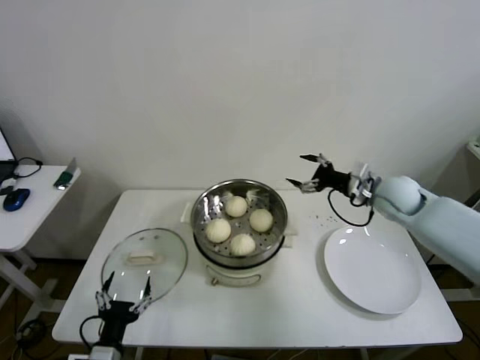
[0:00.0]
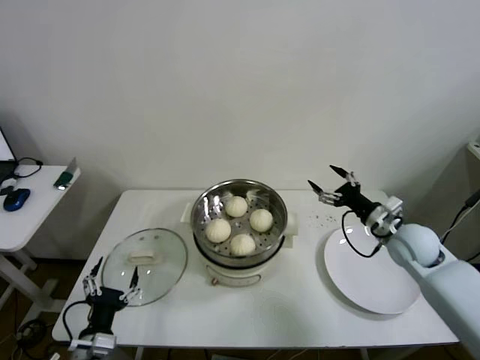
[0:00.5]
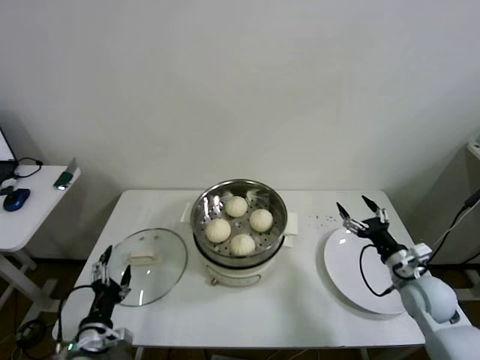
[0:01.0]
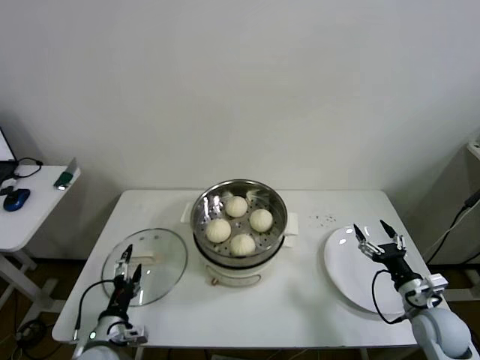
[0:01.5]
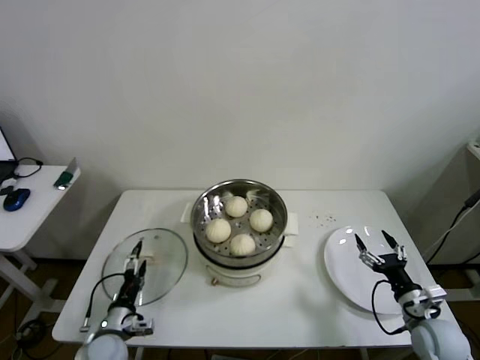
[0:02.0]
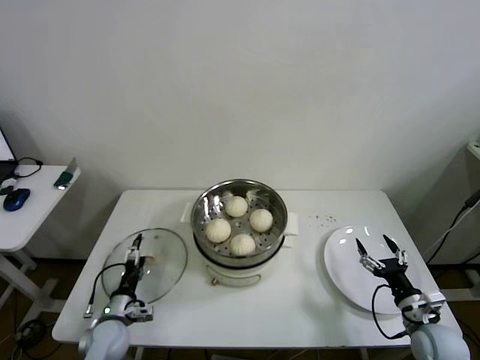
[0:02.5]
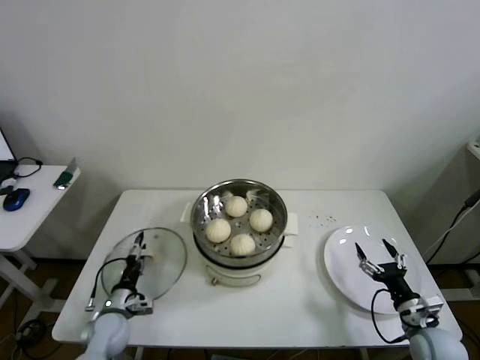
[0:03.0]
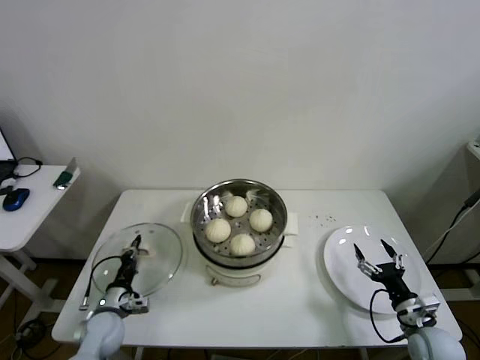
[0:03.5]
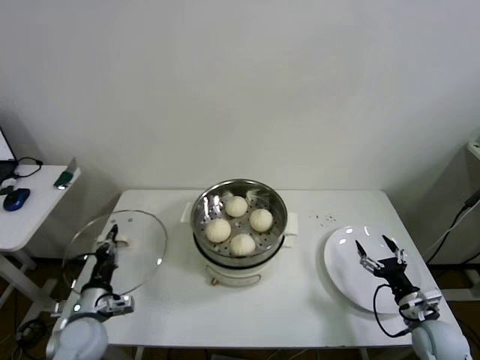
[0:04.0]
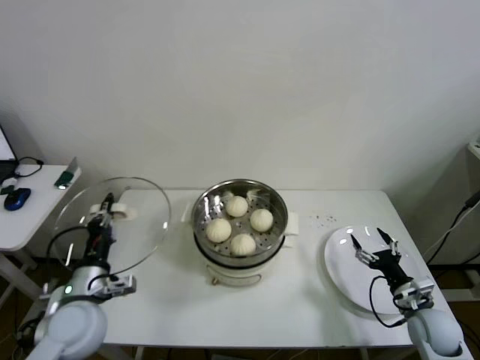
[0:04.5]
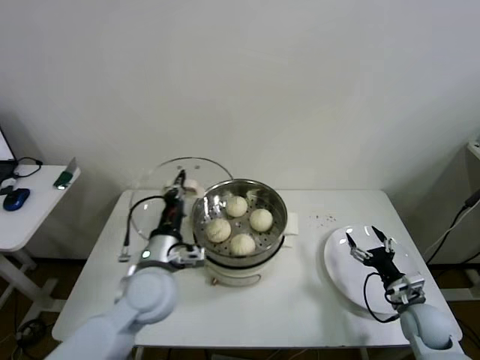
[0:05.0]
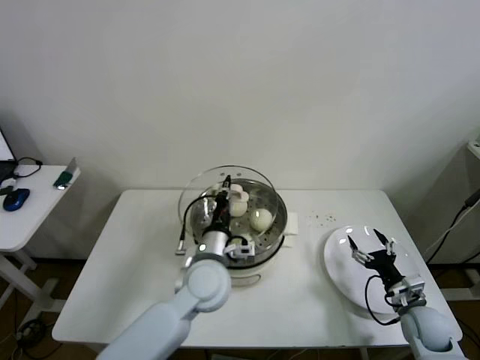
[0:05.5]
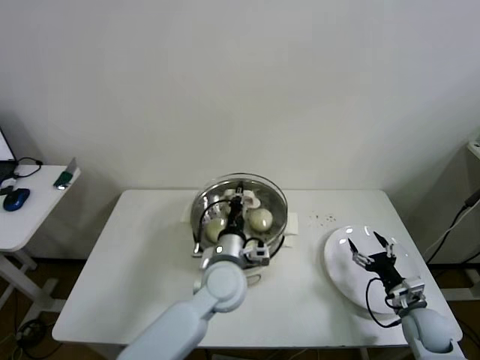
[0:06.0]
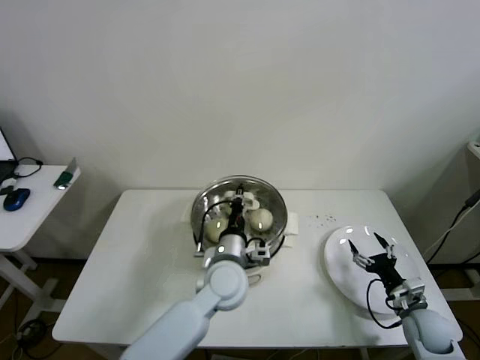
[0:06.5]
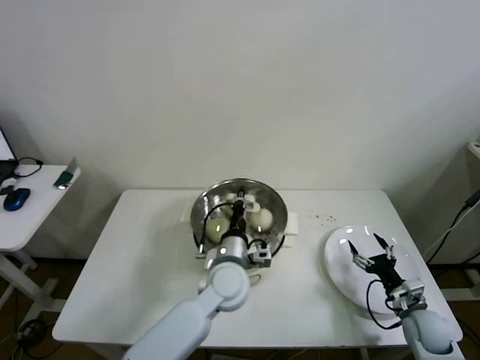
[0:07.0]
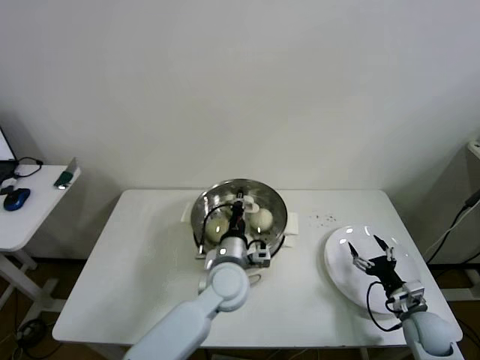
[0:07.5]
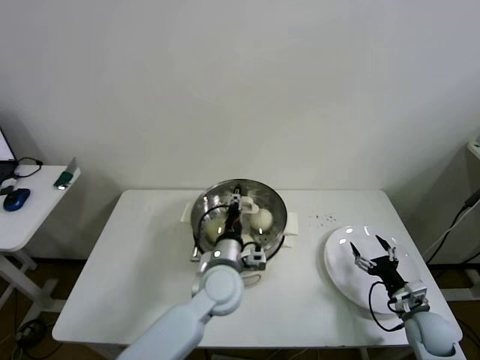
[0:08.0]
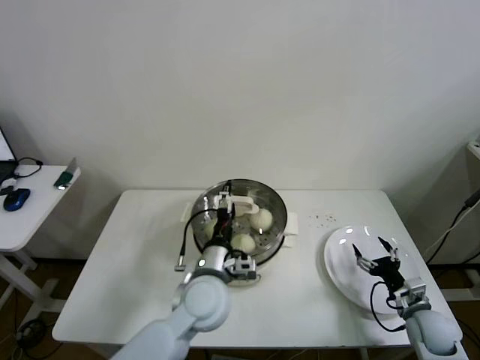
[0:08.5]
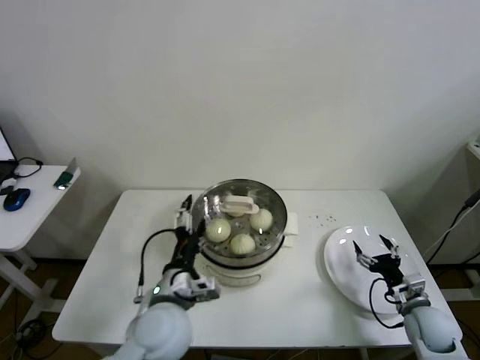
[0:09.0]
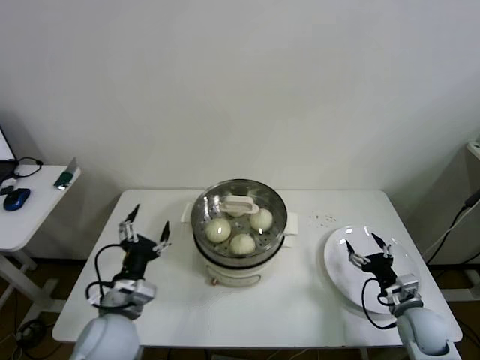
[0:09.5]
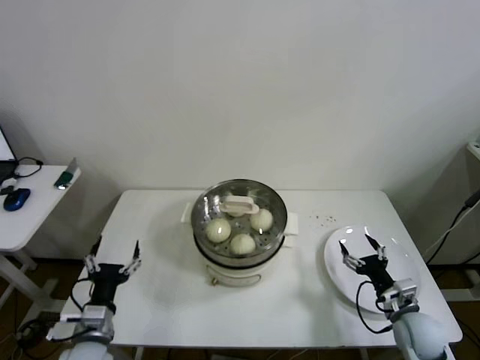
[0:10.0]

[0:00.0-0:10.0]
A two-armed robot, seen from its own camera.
Step, 0.0 to 3.5 s: Grasp the pot lid with left gripper.
Step, 4.0 to 7.5 s: Place the pot lid on the steamer with left gripper.
0.0 to 2.0 s: The right gripper heads backward and downward, covering some 30 cm. Meanwhile the left gripper moves forward and downward, some 10 cm.
2.0 to 4.0 s: The left gripper moves upward, about 5 cm, and closes.
4.0 to 6.0 s: The left gripper is displaced to the right by about 30 cm.
6.0 to 8.0 s: The left gripper opens up.
8.0 to 10.0 s: The right gripper moves about 5 cm. The left gripper moves to the left and backward, approximately 30 cm, and opens its fingers.

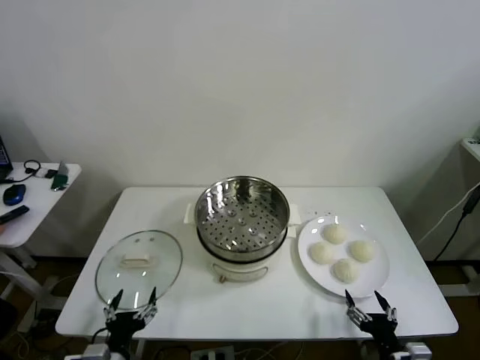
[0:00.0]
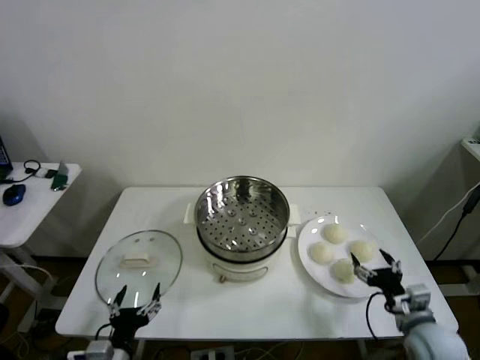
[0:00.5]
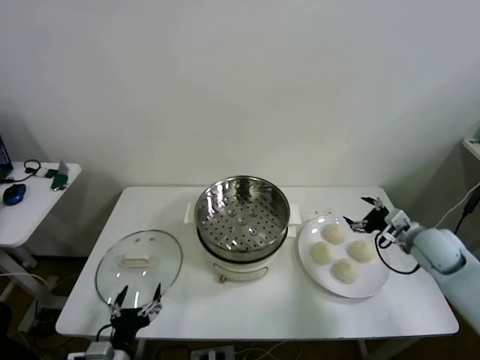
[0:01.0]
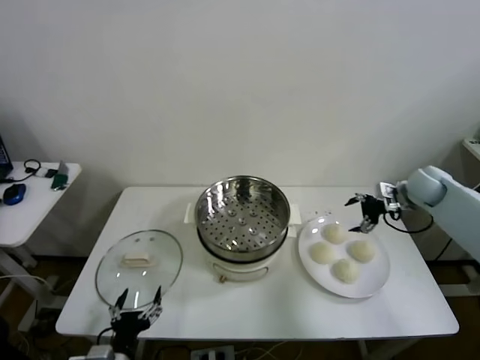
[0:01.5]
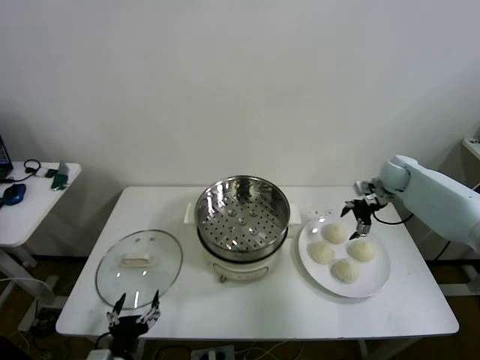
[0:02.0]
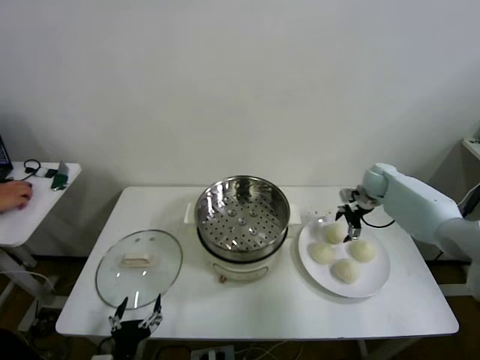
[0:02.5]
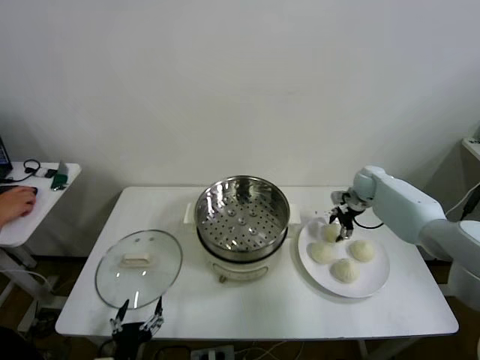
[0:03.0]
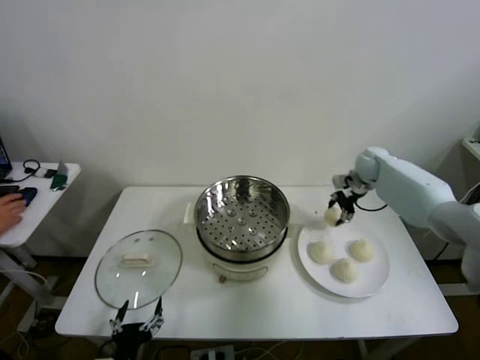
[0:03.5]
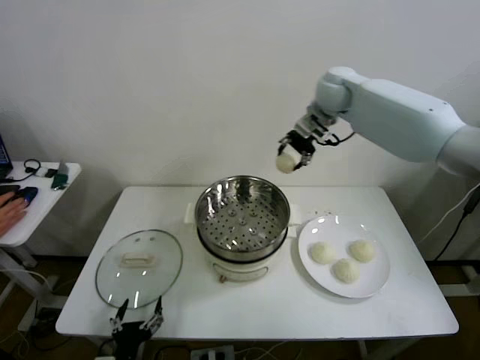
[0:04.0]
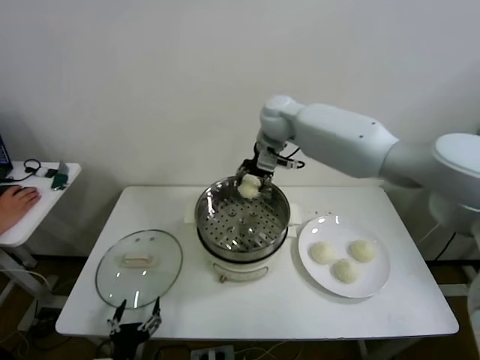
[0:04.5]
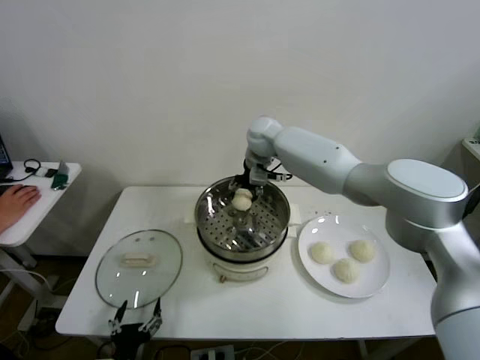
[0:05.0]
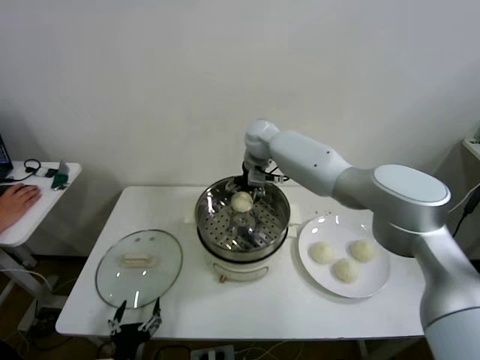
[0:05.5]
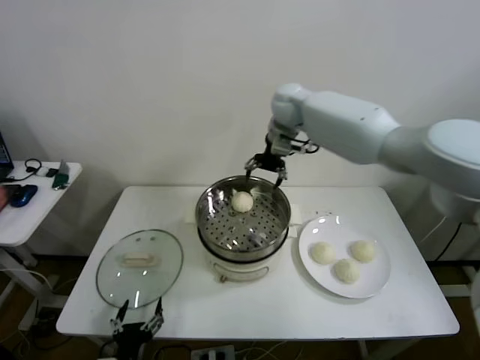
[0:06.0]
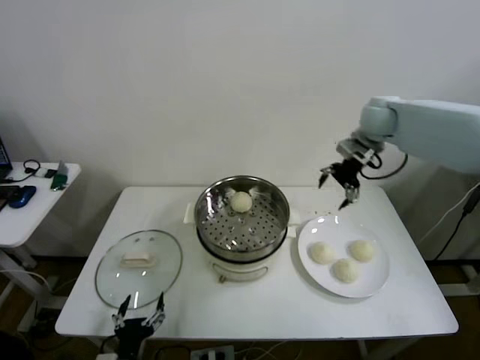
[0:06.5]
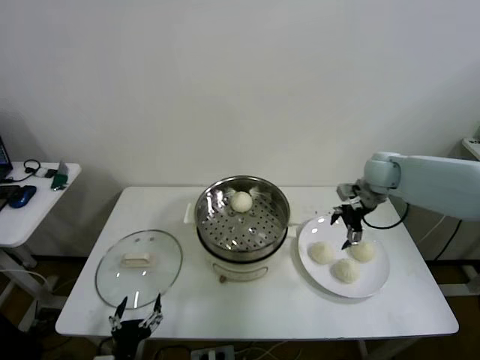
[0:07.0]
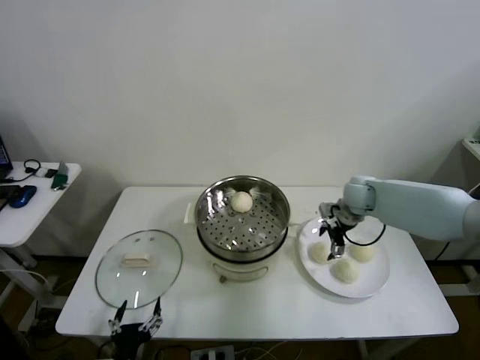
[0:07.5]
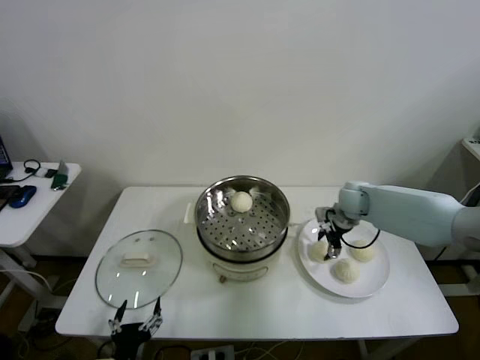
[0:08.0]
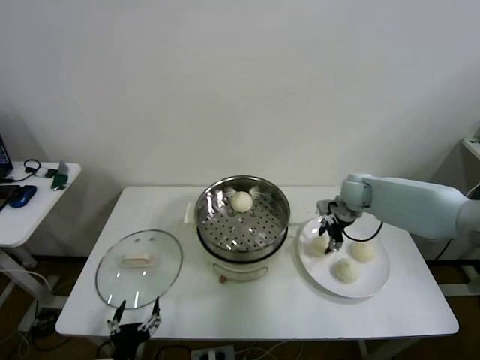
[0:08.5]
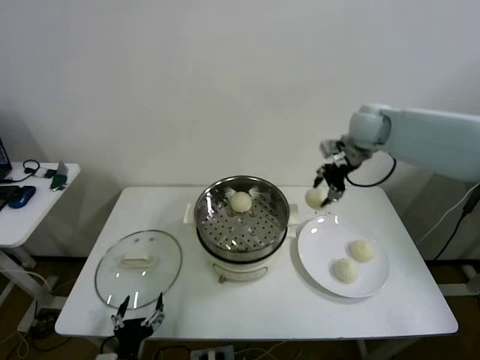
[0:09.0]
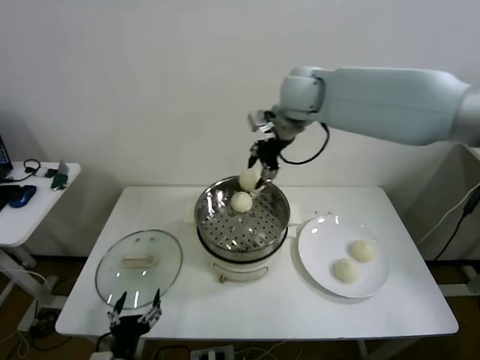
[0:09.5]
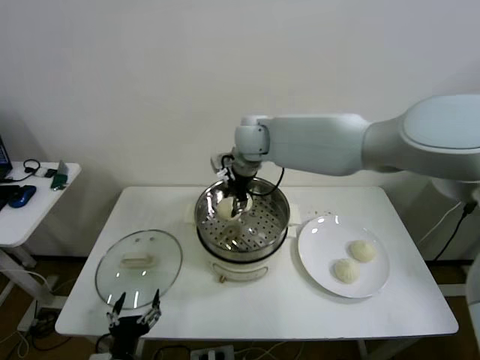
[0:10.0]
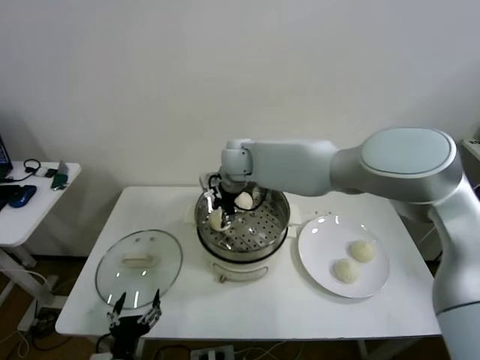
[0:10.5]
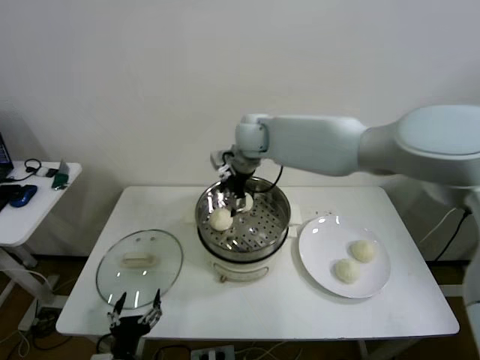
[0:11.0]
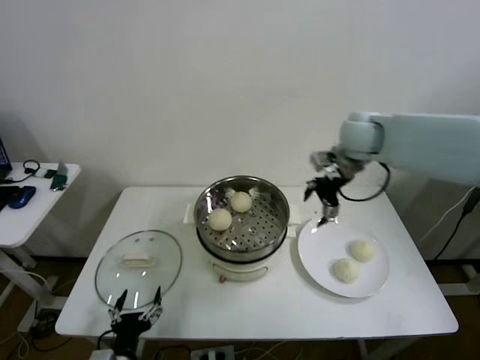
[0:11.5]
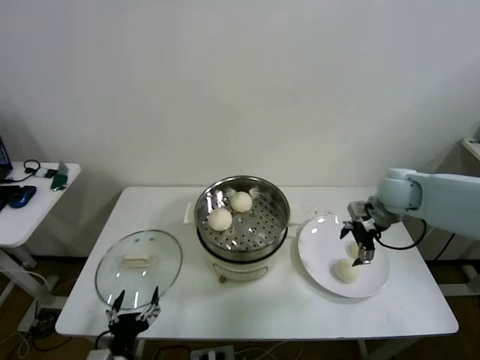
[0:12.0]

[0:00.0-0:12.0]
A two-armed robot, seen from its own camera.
Step, 0.0 to 3.0 s: Grasp the baozi in the plate with right gripper.
Step, 3.5 to 5.0 s: Place the baozi on the steamer with right gripper.
Step, 6.0 to 8.0 s: Grasp the baozi in the plate with right gripper.
Step, 8.5 to 10.5 s: Place the baozi on the steamer with right gripper.
2.0 to 4.0 s: The right gripper moves to the left and upward, some 35 cm, and closes.
4.0 to 6.0 s: The right gripper reaches about 15 cm downward, then returns, and opens up.
6.0 to 8.0 s: The right gripper goes about 30 cm downward and to the right, and closes up.
8.0 to 10.0 s: The right gripper heads to the left and upward, covering about 35 cm.
10.0 to 12.0 s: The right gripper shifts some 35 cm to the right, and opens.

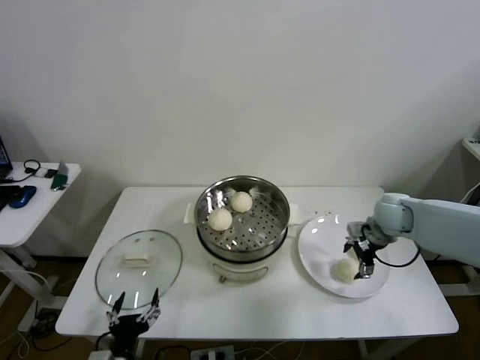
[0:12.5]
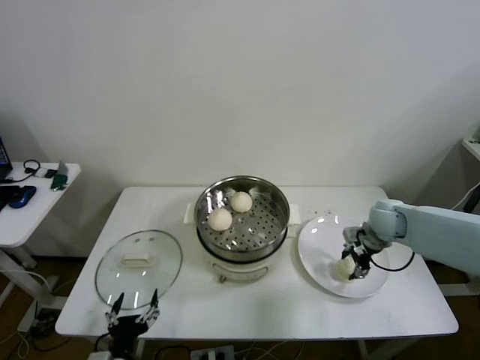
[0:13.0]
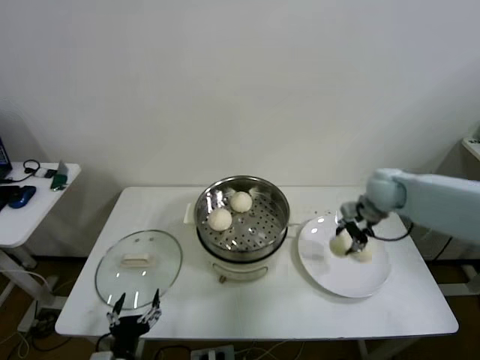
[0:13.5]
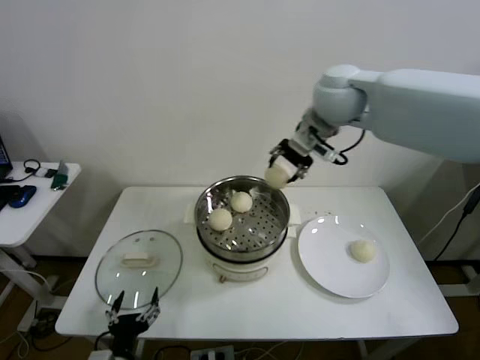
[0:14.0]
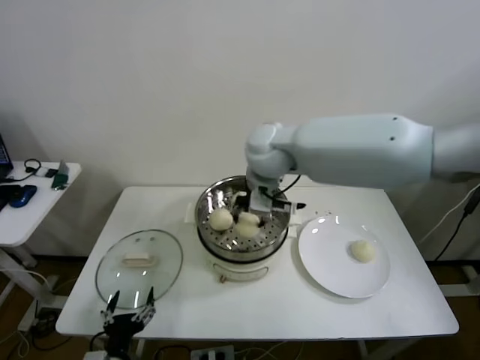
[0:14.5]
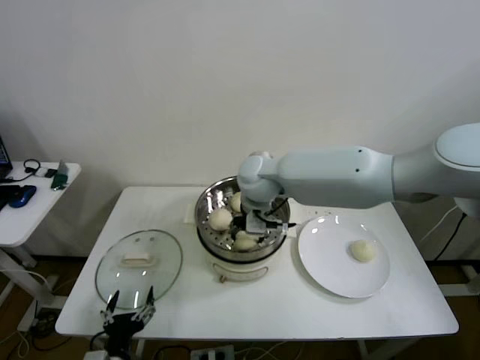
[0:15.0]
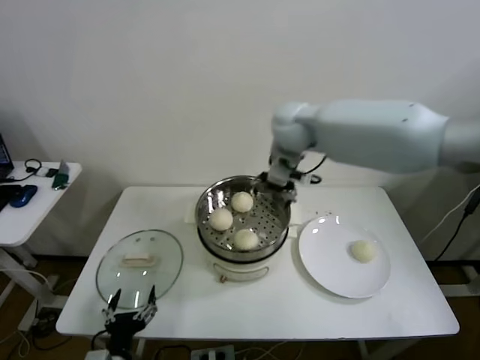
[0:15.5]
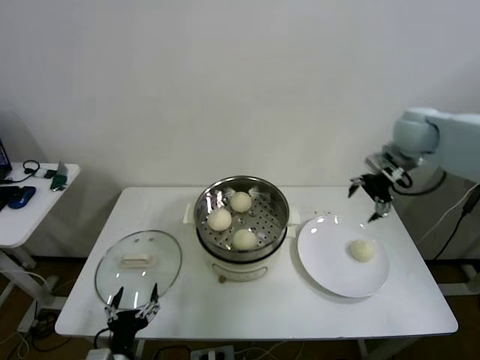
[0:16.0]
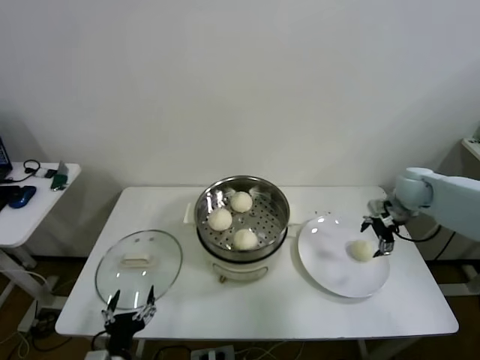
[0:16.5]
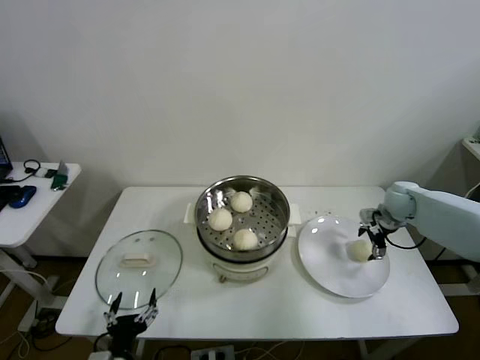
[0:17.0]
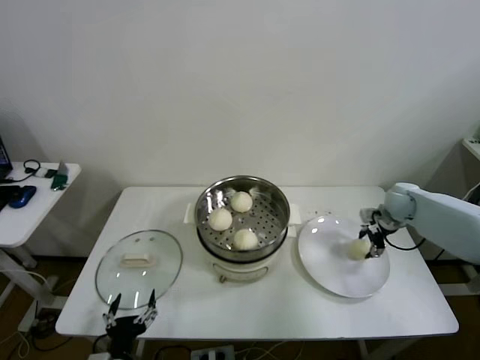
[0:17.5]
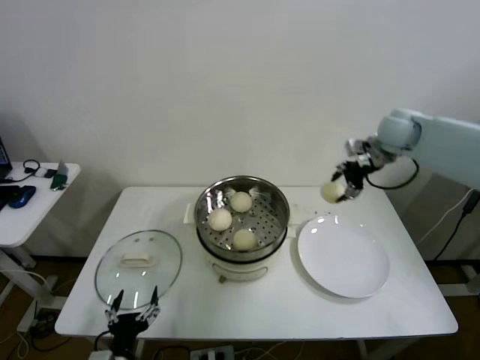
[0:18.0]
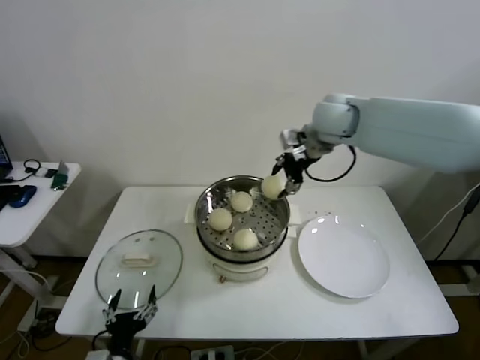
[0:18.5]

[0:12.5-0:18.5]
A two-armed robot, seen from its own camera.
Step, 13.5 to 15.0 s: Place the baozi on the steamer with right gripper.
Step, 15.5 to 17.0 s: Grasp the baozi in the plate with right gripper.
12.5 to 14.5 s: The right gripper is displaced to the left and upward by approximately 35 cm, and closes.
14.5 to 16.5 s: The right gripper travels to the right by approximately 35 cm, and opens up.
16.5 to 18.5 s: The right gripper heads to the left and upward, covering approximately 30 cm, and closes.
